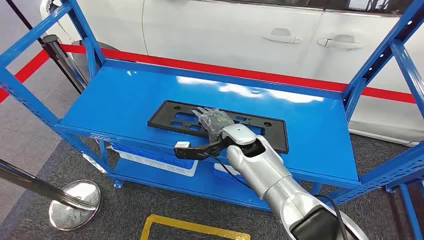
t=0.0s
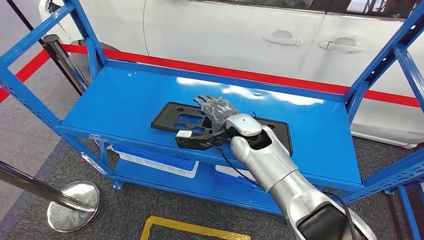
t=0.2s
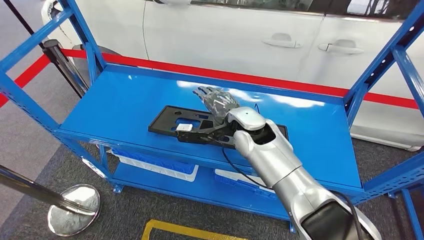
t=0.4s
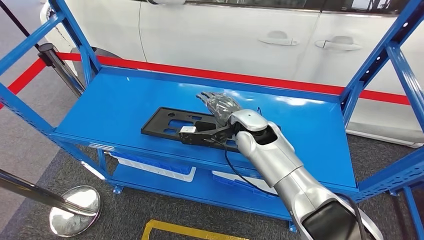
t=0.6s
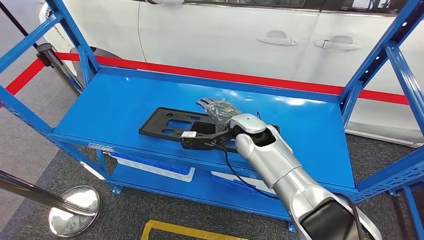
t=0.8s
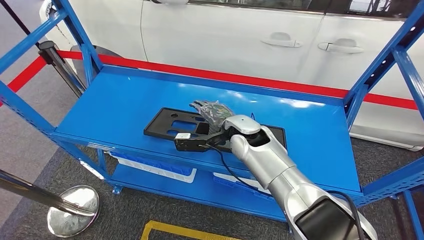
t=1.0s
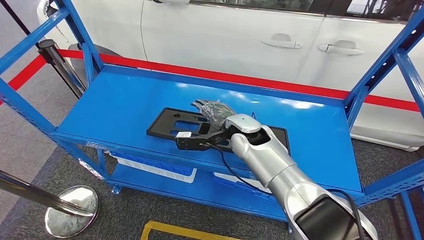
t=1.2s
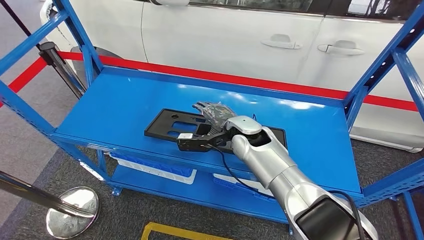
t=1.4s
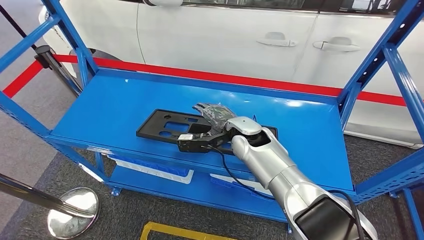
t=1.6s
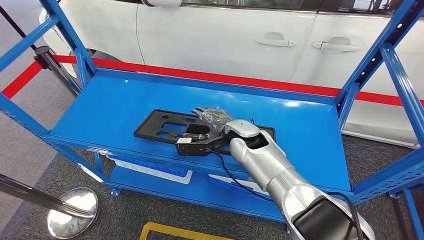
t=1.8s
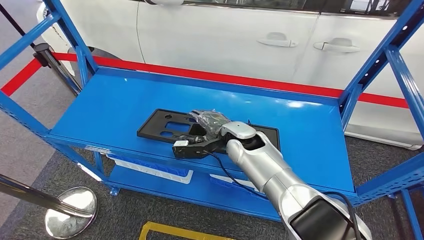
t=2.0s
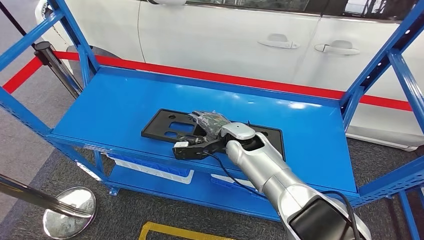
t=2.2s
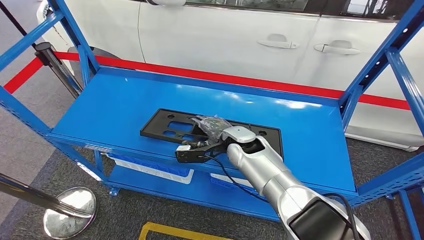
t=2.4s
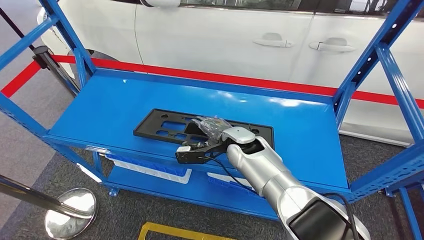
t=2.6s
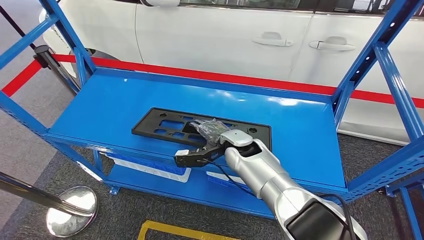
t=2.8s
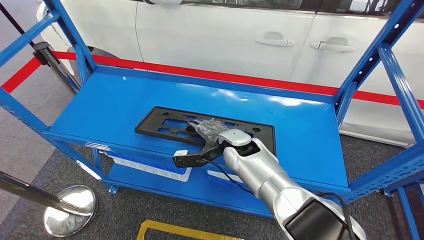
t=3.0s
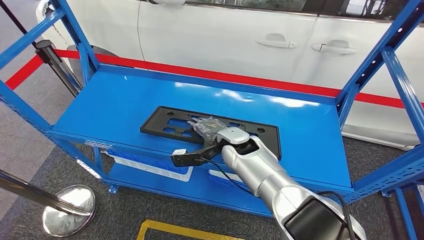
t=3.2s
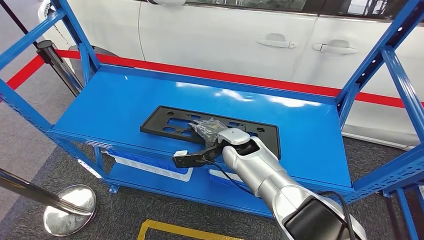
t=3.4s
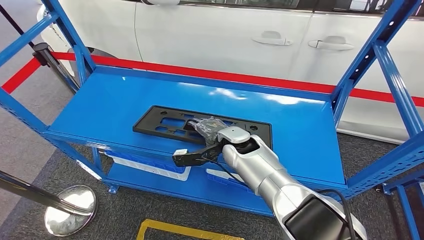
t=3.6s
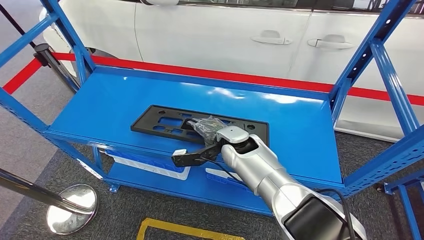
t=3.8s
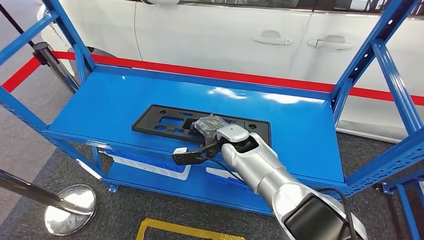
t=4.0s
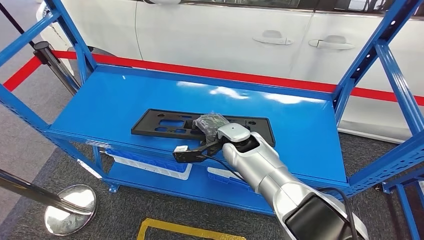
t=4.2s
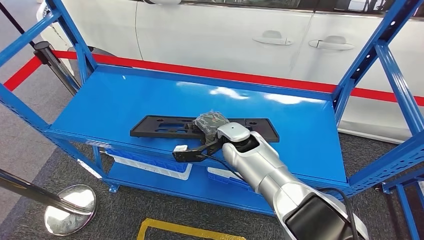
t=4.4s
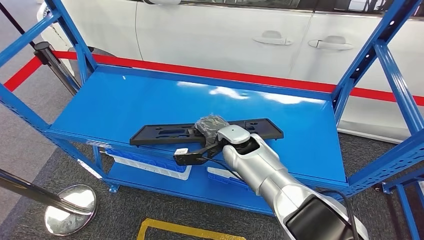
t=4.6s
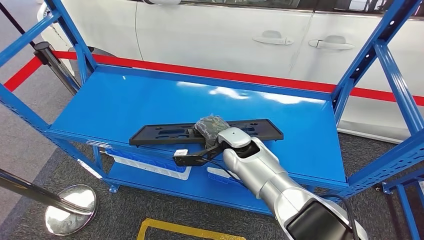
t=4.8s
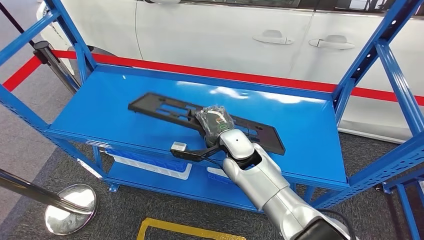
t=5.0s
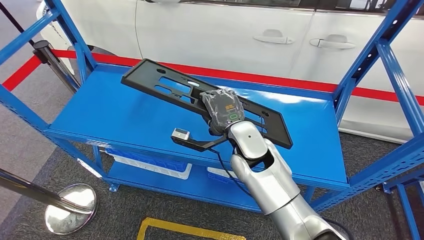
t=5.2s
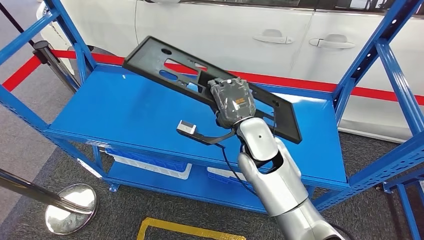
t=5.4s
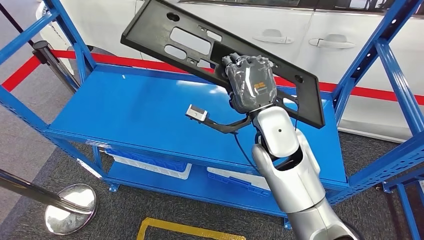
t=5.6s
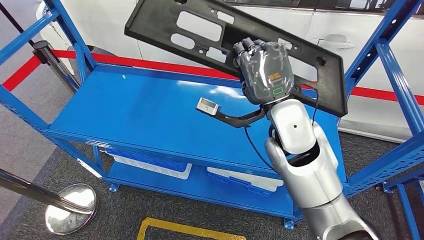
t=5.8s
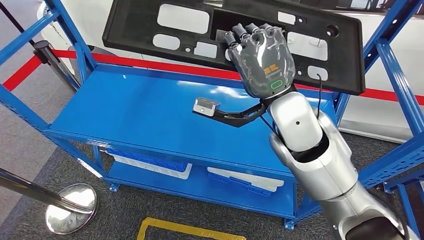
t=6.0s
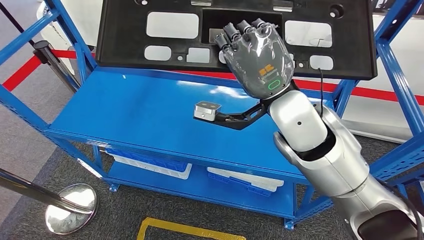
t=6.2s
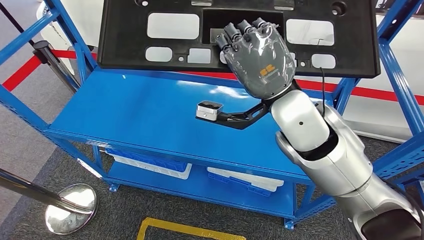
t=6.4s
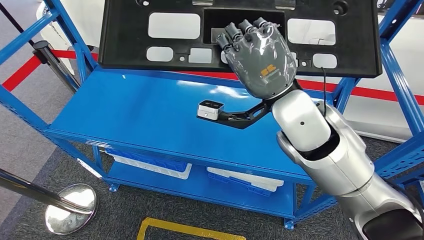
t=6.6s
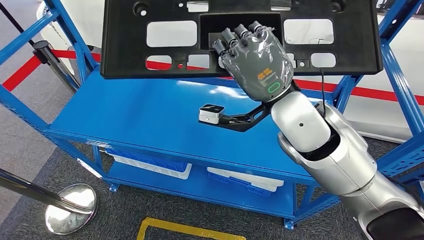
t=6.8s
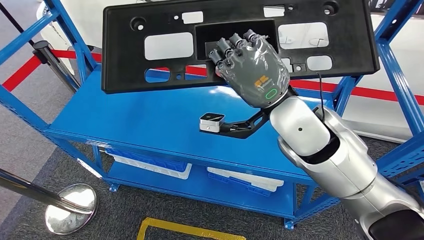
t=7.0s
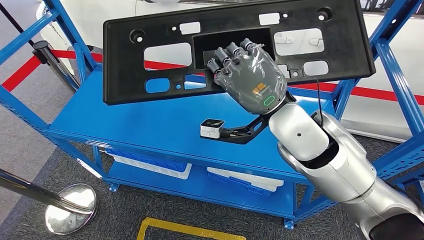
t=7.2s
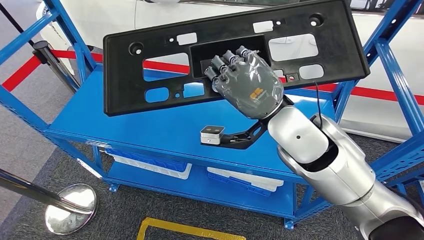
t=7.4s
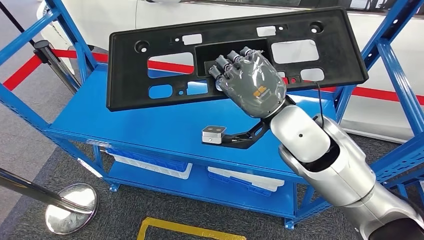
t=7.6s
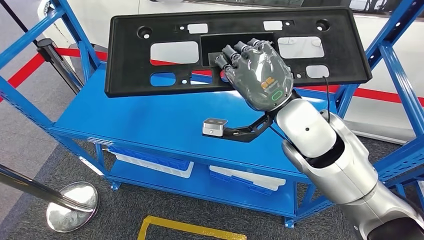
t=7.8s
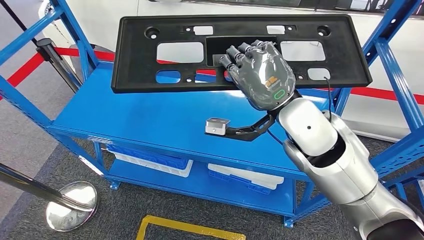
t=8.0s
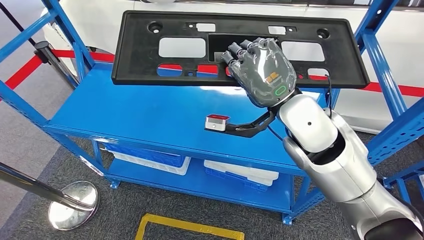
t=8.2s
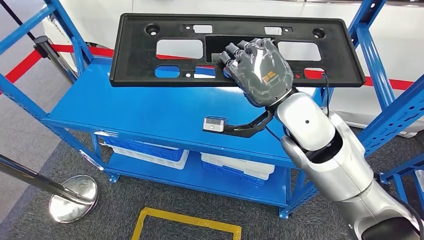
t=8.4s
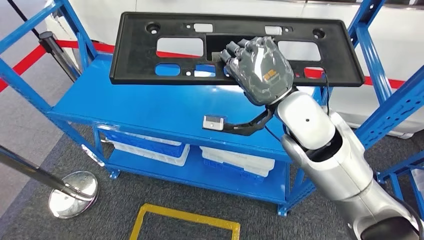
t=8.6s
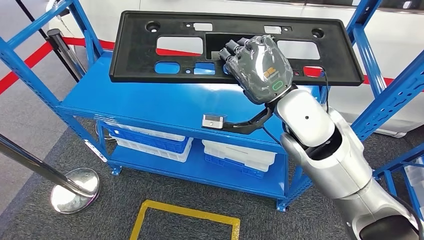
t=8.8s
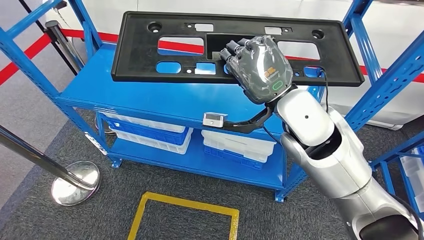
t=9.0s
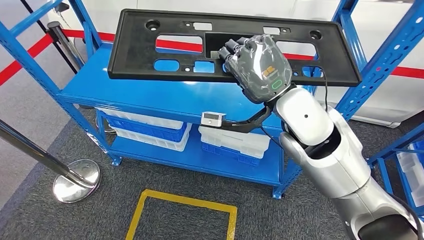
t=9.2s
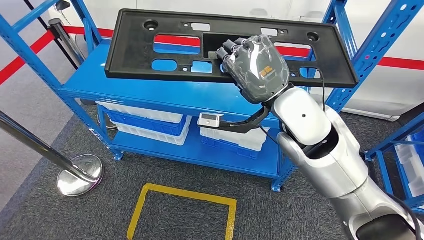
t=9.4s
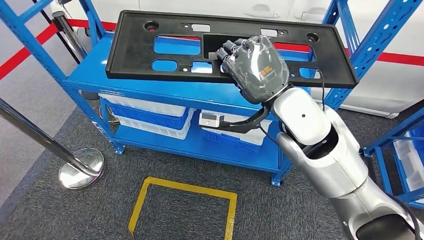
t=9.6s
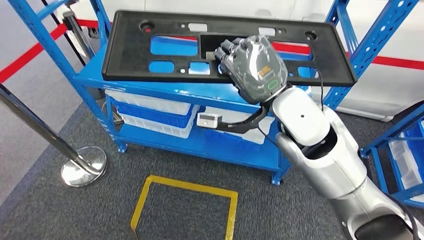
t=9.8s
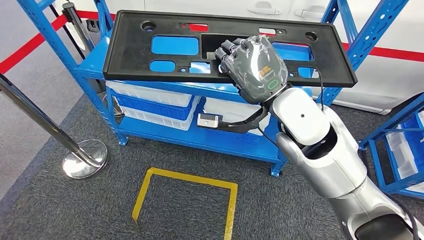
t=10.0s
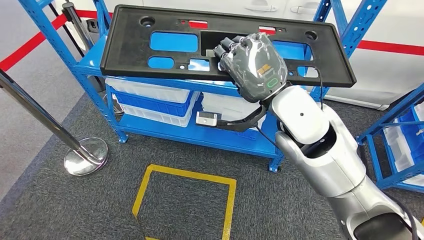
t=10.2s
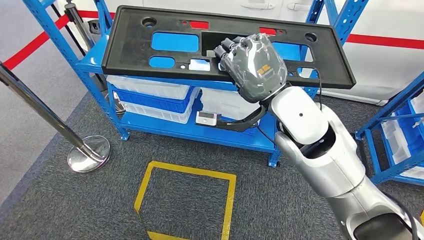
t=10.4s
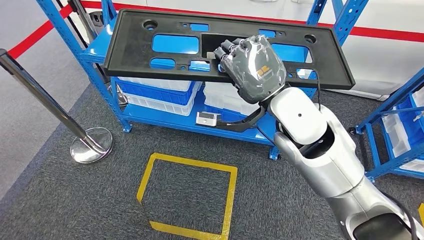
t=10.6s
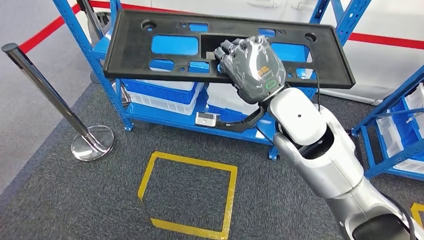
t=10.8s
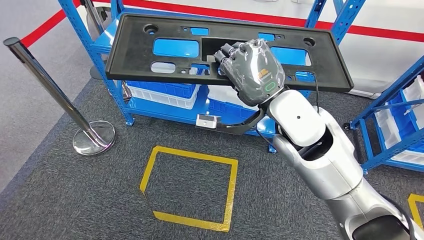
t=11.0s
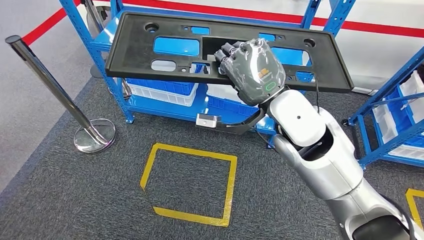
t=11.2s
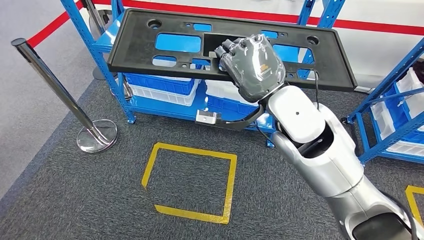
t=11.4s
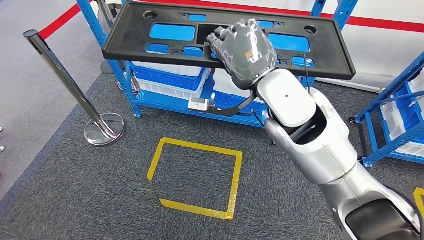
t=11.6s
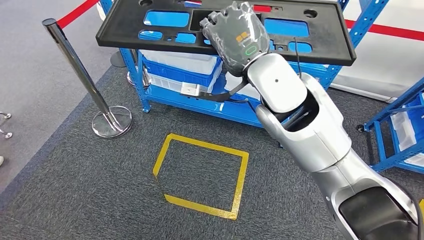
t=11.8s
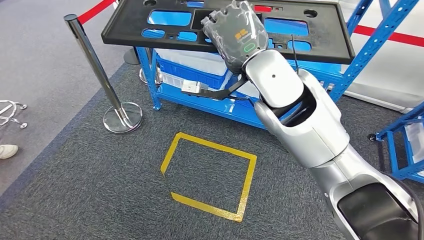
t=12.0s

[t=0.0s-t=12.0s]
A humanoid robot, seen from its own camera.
Step, t=0.0s to t=8.2s: Pick up the large material from the shelf.
t=3.0s to t=4.4s: There are only small adjustments of the hands.

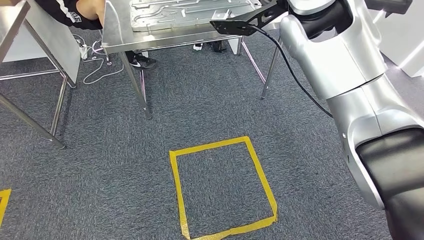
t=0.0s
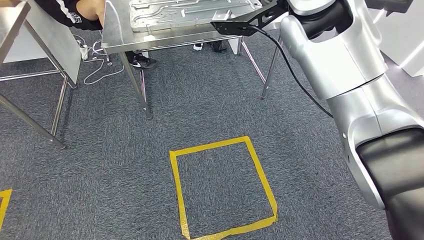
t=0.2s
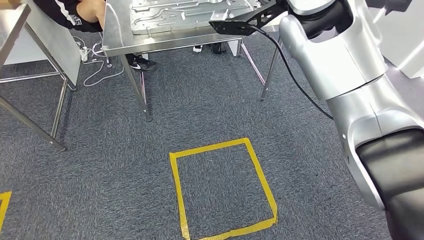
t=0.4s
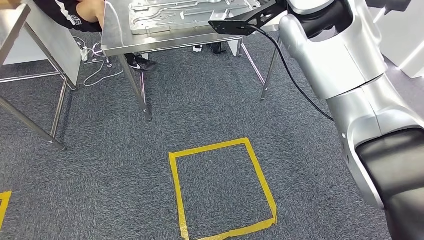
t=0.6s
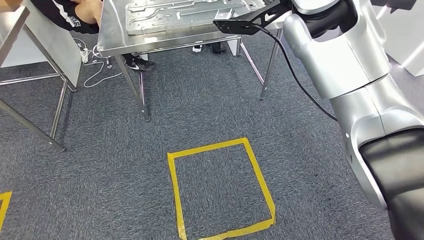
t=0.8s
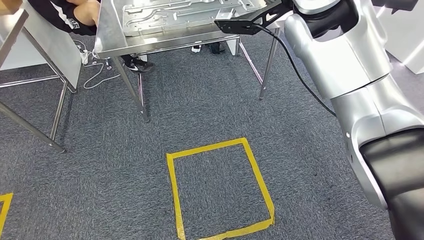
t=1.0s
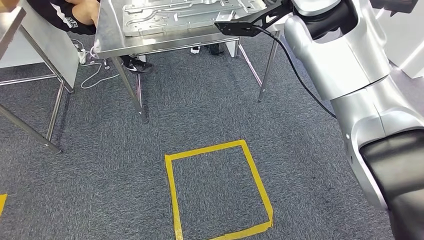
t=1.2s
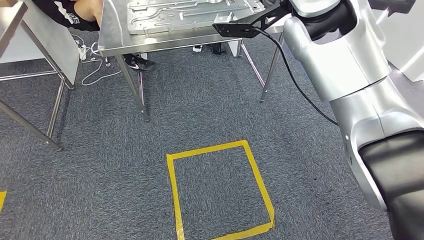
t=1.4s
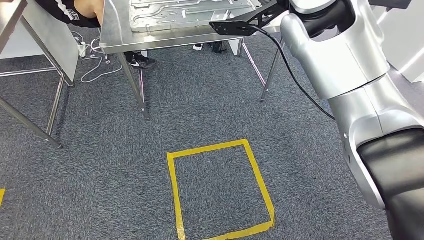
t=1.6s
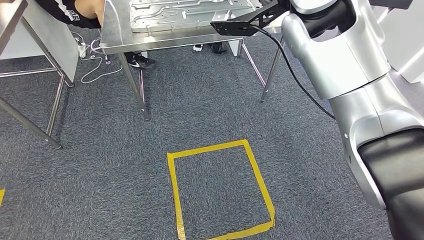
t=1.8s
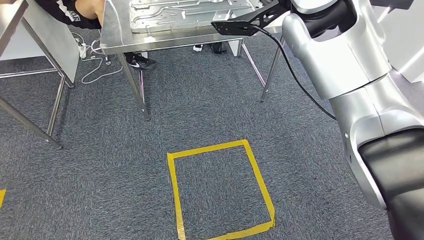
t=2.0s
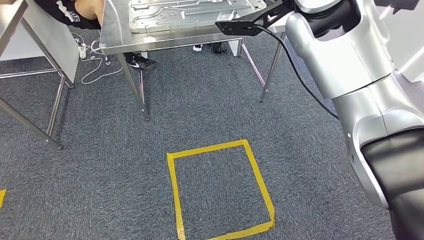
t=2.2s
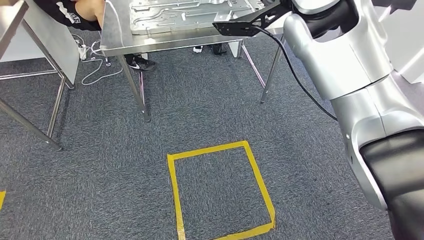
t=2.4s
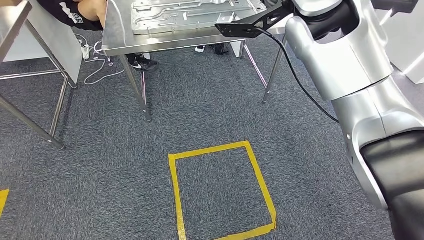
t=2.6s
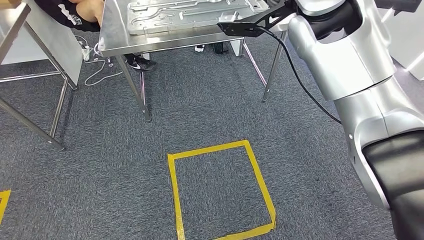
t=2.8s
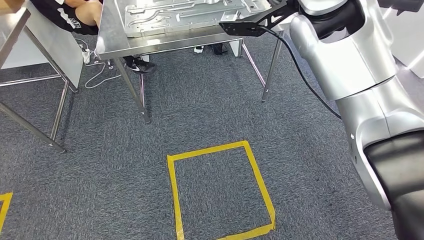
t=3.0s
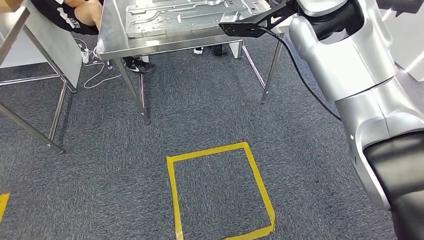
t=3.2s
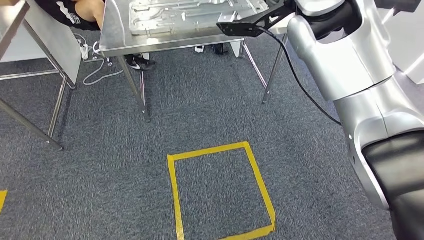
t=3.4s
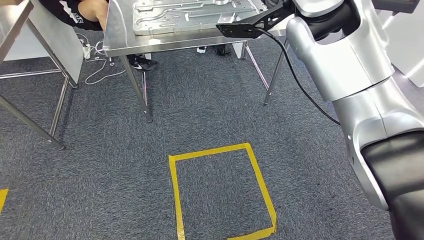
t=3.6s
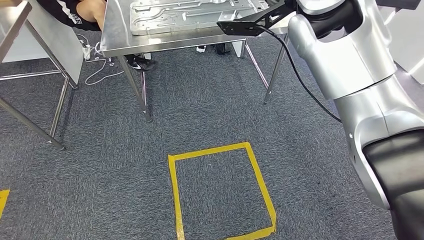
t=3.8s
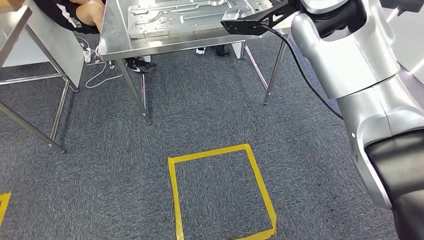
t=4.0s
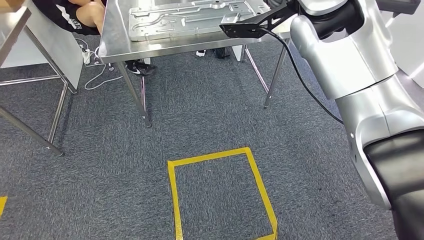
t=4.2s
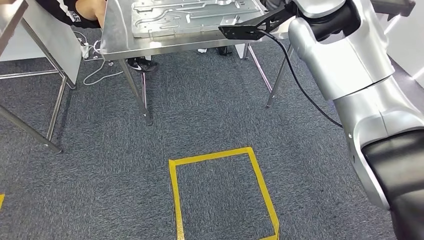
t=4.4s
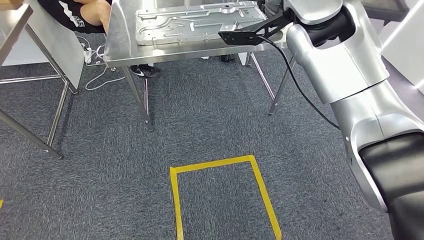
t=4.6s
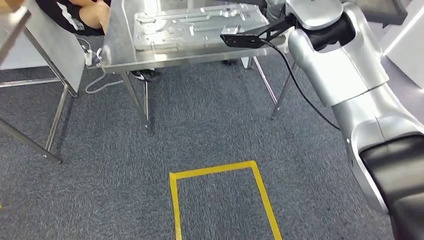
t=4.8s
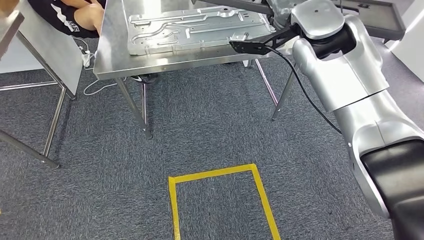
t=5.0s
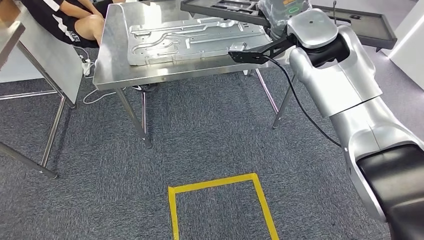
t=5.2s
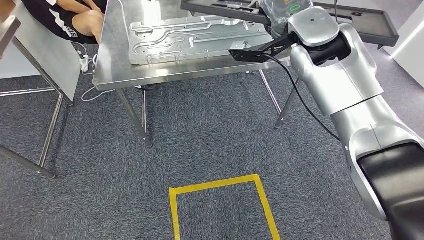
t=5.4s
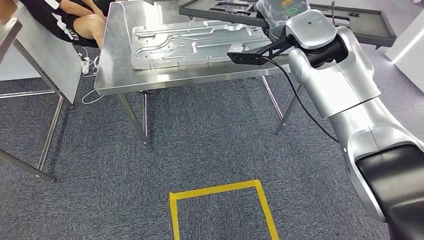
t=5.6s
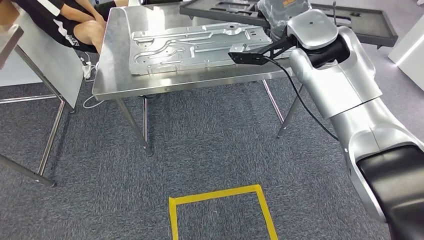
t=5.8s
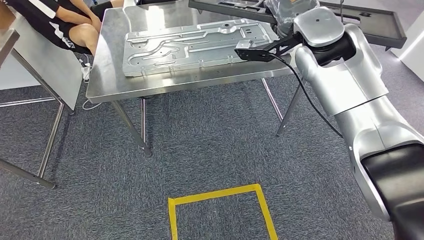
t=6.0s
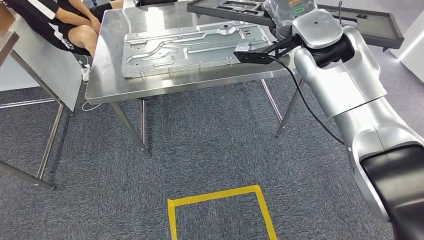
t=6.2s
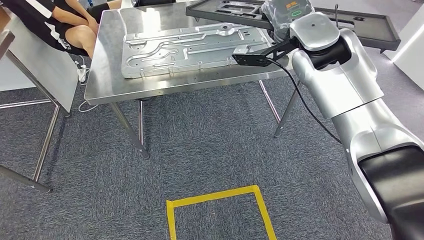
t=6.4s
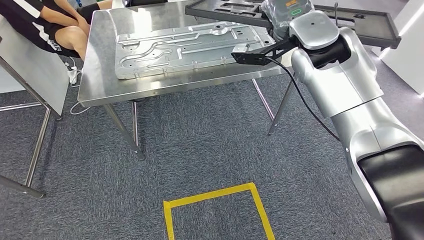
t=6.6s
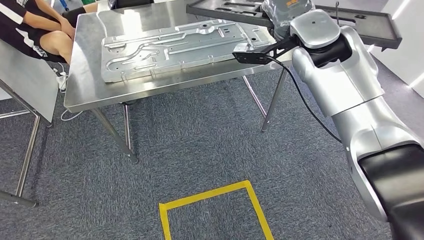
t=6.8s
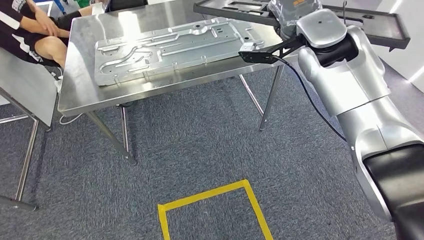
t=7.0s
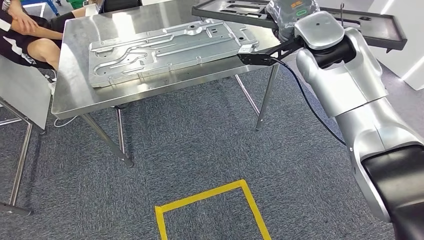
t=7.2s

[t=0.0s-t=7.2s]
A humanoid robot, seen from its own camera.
t=0.0s to t=2.8s: Neither hand changes place.
t=2.8s to t=4.4s: Both hands stay put.
